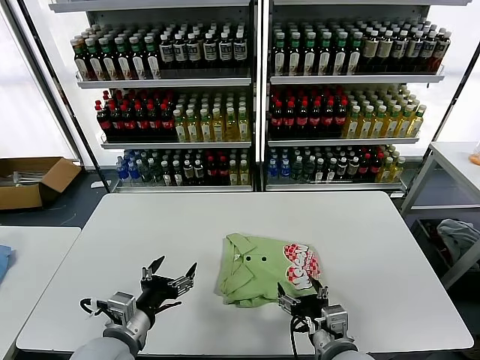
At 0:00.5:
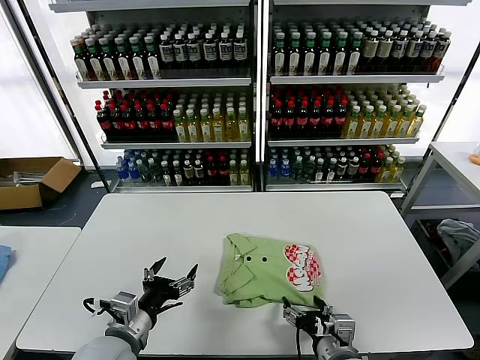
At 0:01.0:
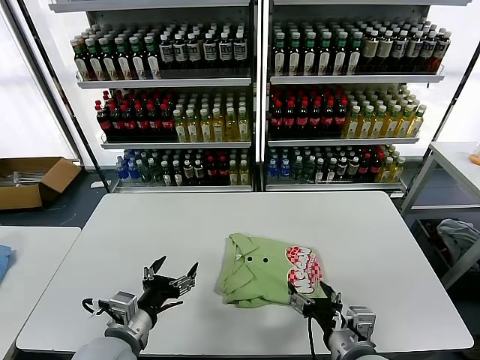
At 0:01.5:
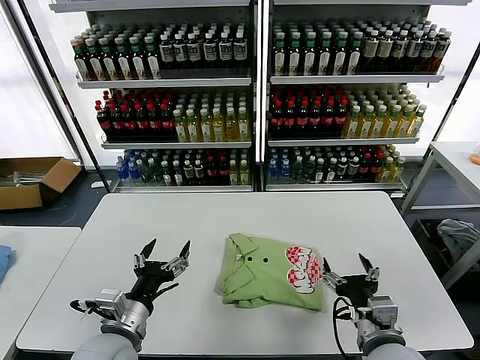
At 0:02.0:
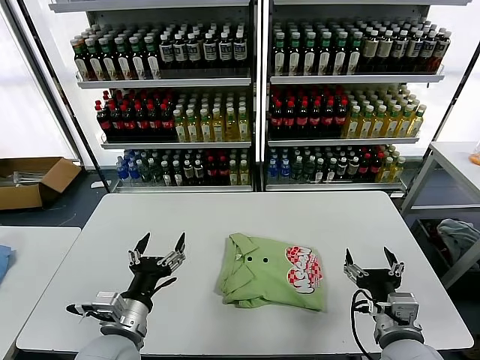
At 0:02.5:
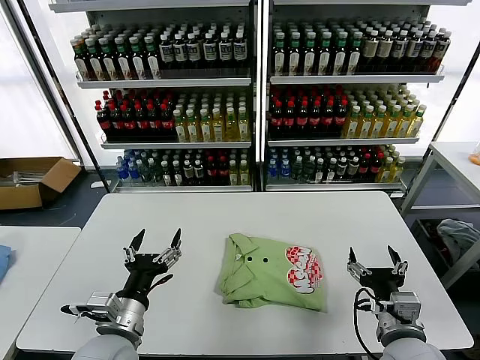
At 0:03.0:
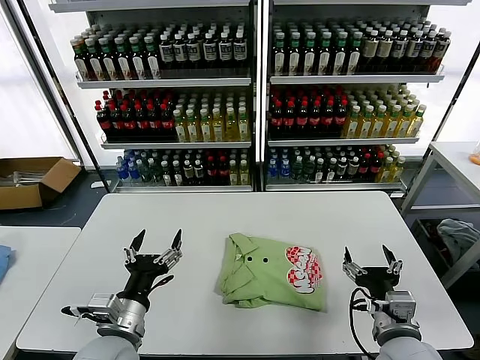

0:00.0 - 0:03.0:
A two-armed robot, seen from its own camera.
Task of the whole recording: fold and organize the clothes.
0:00.0 - 0:01.5: The right gripper travels to the right by about 5 cm.
0:01.5 - 0:03.0: The grippers move only a little.

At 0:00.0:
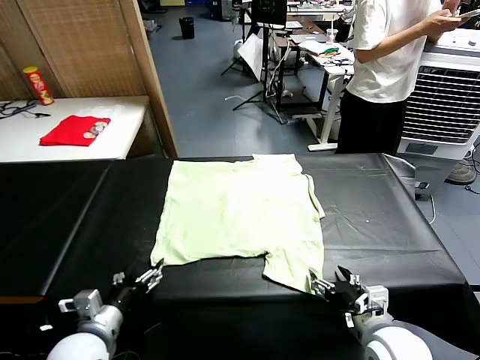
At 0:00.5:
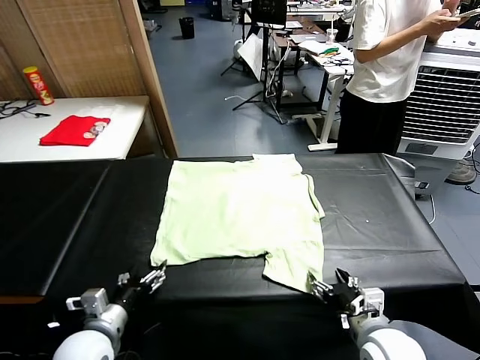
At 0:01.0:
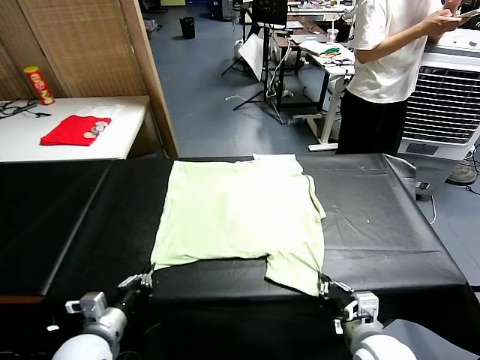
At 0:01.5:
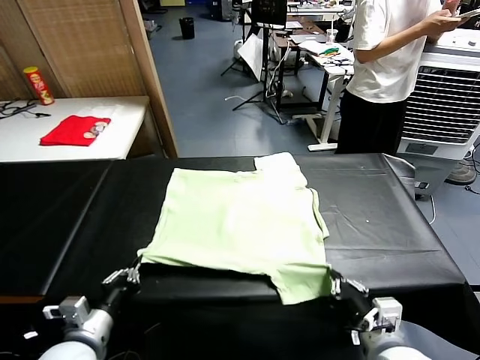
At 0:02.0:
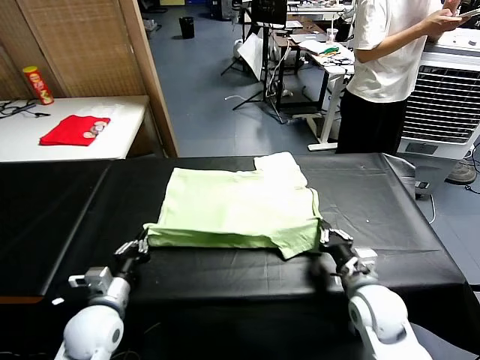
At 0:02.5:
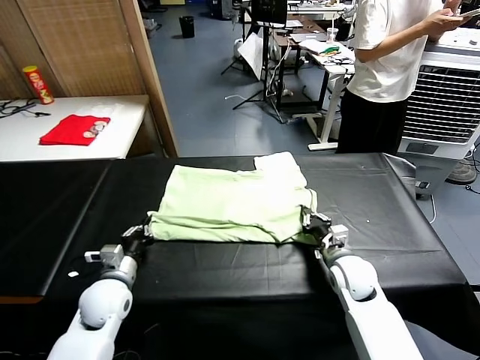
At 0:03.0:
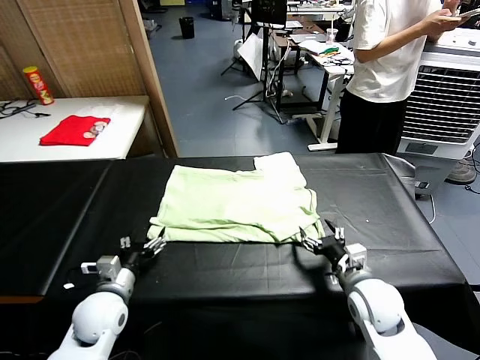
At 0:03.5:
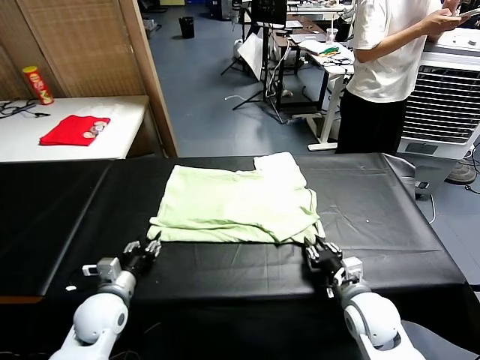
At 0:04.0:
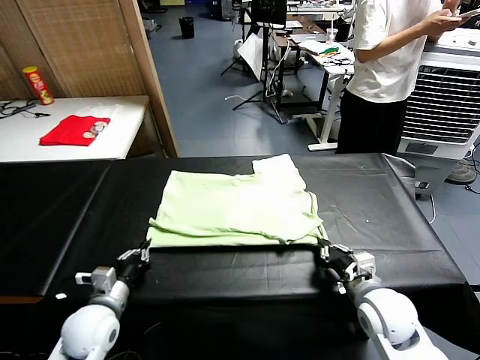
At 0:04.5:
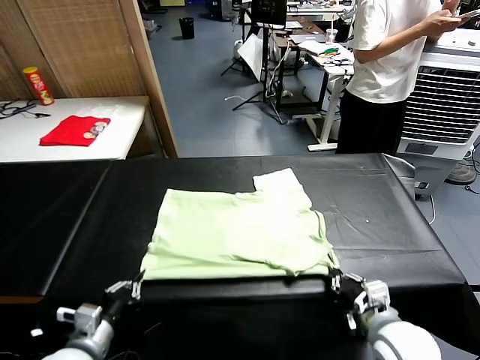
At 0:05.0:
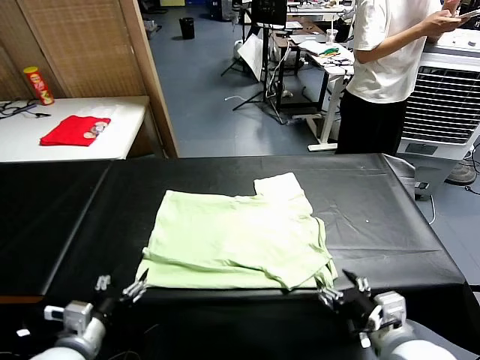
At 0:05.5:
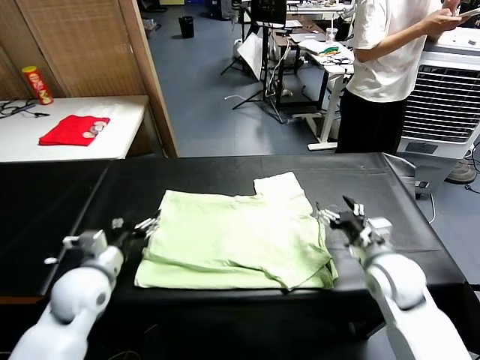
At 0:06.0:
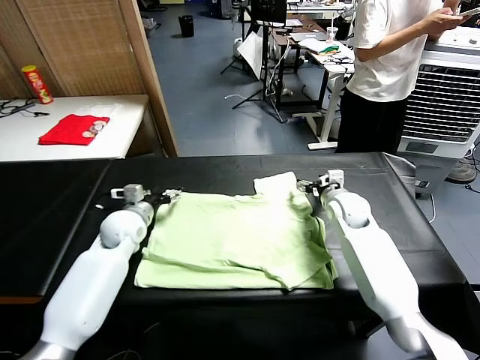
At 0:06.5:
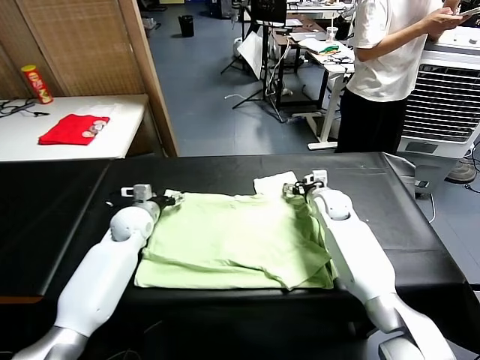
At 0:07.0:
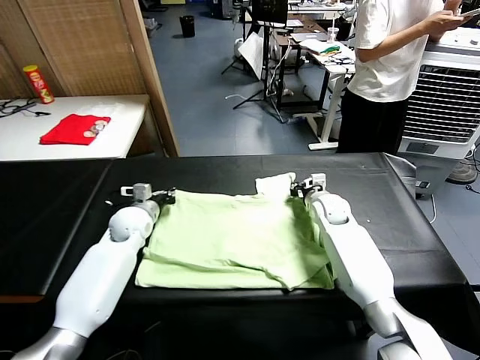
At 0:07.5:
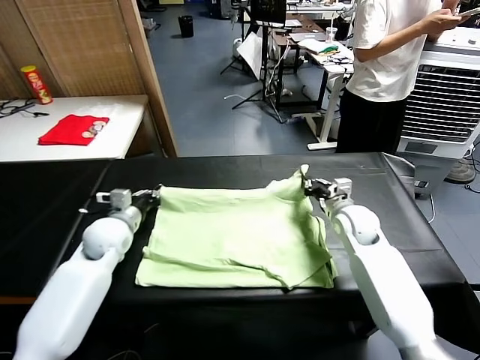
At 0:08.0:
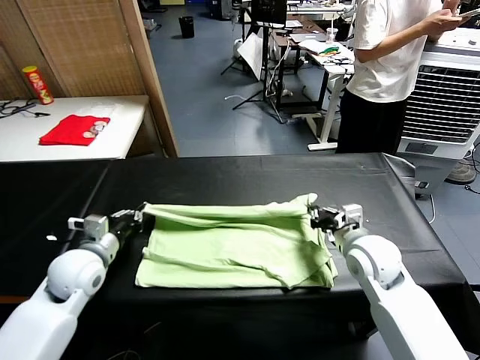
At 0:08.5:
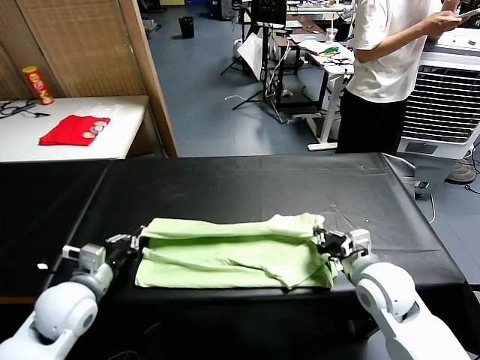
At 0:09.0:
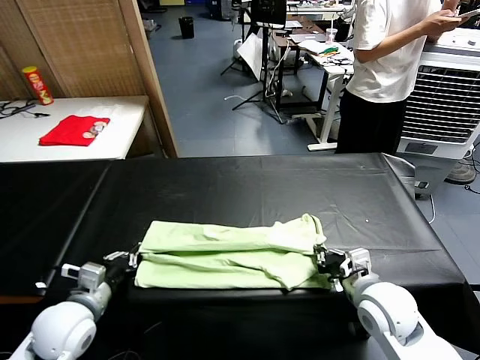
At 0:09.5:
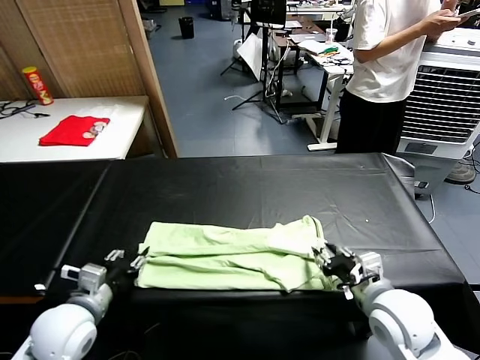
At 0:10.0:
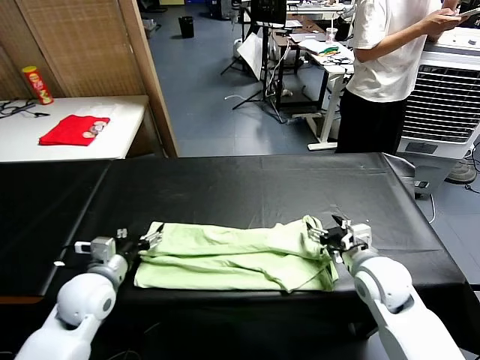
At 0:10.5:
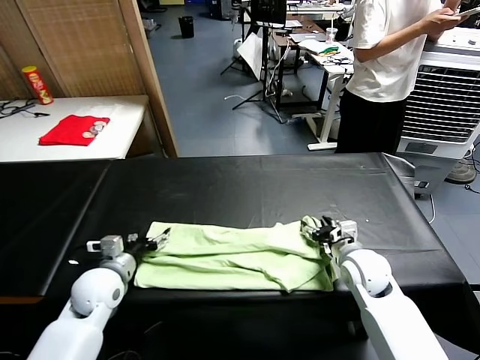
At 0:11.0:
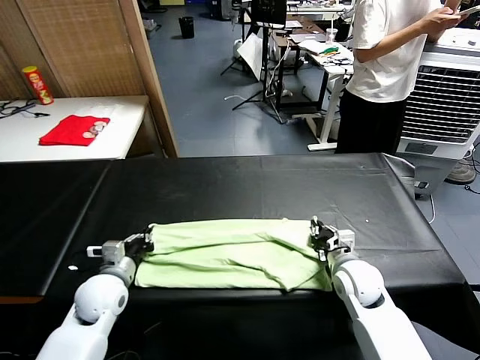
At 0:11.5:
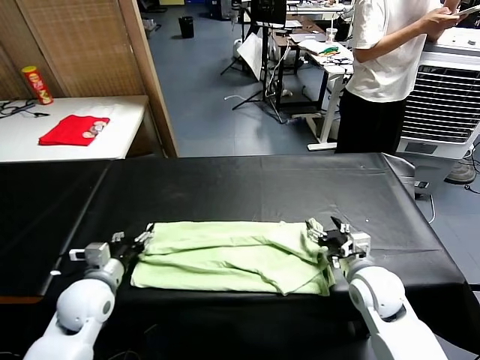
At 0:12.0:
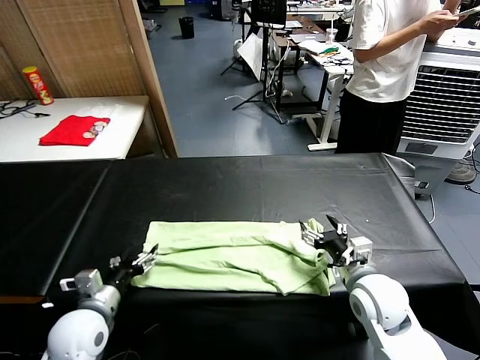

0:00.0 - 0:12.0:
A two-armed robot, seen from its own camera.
Task of the whole recording: fold and organize the clothes.
Step, 0:00.0 - 0:00.5: use both grippers simultaneously to clamp the lower edge of the clothing fabric.
Step, 0:01.5 - 0:02.5: use both grippers to drag the lower edge of the fabric forward and fold it over the upper edge.
Step, 0:03.0 - 0:04.5: Drag the clothes downward with both gripper.
Step, 0:05.0 - 0:07.0: use both grippers simultaneously to clamp the upper edge of the clothing fabric.
Step, 0:07.5 - 0:09.0: use both grippers to drag the upper edge of the fabric backward and fold it over the lower edge.
0:02.0 - 0:04.0: The left gripper opens and closes again. The right gripper moves backward, roughly 5 cm, and opens, then closes again.
0:04.0 - 0:06.0: The grippers both shift forward by about 25 cm. The right gripper opens up, while the left gripper opens its fingers.
0:06.0 - 0:08.0: The grippers both shift backward by some 15 cm. The right gripper closes. Meanwhile the left gripper closes its fingers.
0:08.0 - 0:10.0: The right gripper travels backward and back again, about 10 cm each way, and opens, while the left gripper moves roughly 10 cm backward and comes back, and opens.
0:10.0 - 0:12.0: The left gripper is displaced backward by some 5 cm, and closes and opens again. The right gripper closes, then opens again.

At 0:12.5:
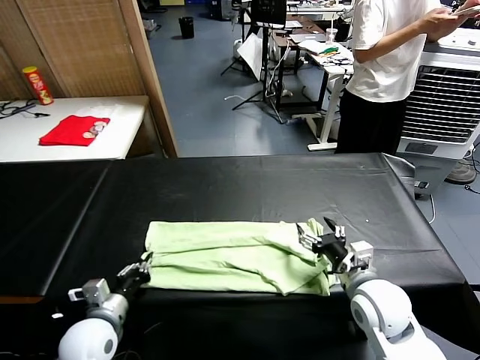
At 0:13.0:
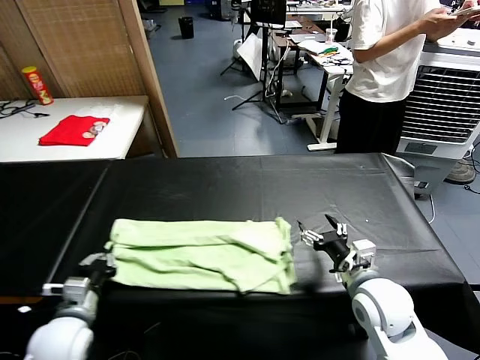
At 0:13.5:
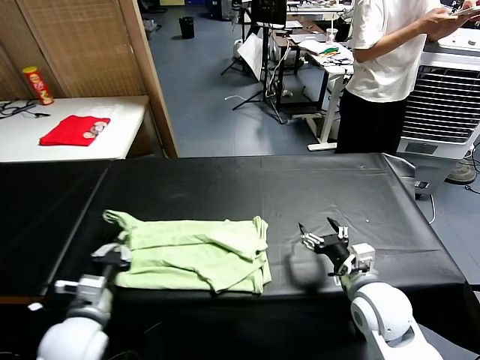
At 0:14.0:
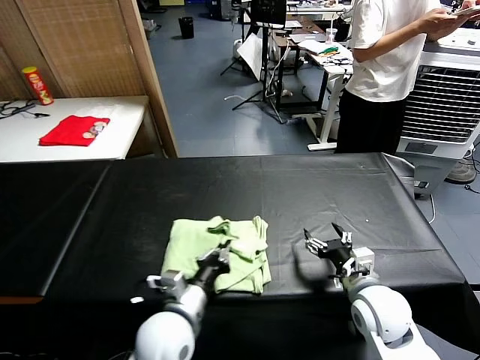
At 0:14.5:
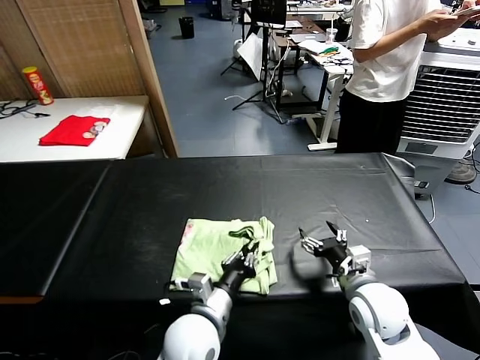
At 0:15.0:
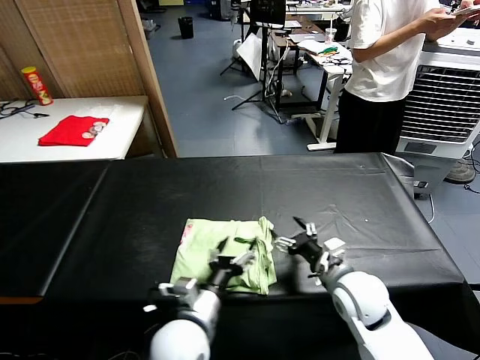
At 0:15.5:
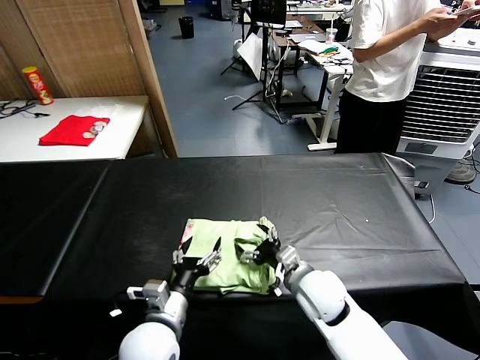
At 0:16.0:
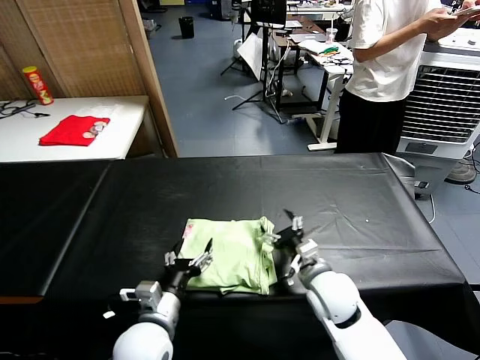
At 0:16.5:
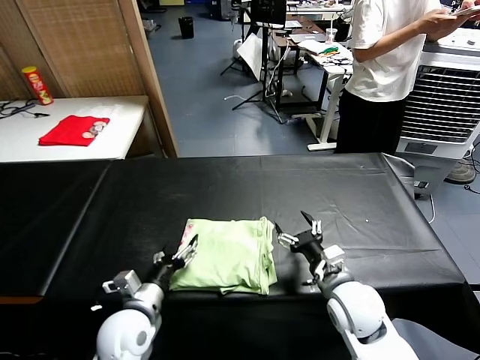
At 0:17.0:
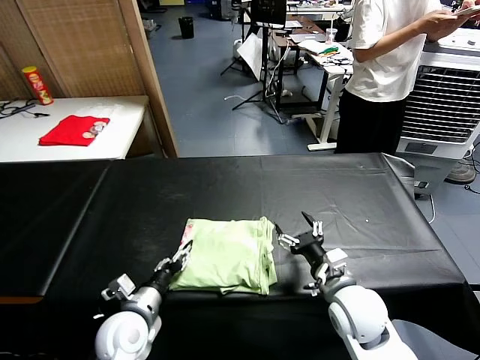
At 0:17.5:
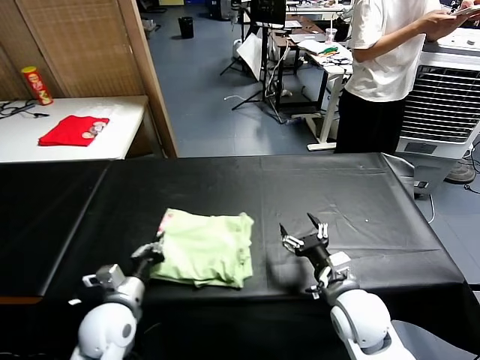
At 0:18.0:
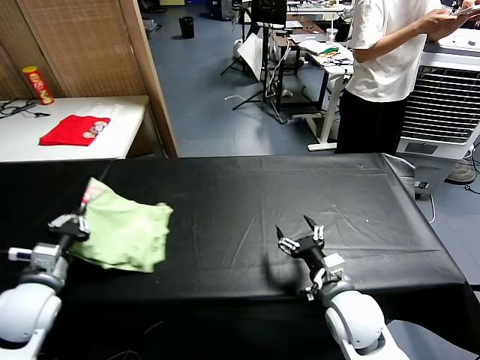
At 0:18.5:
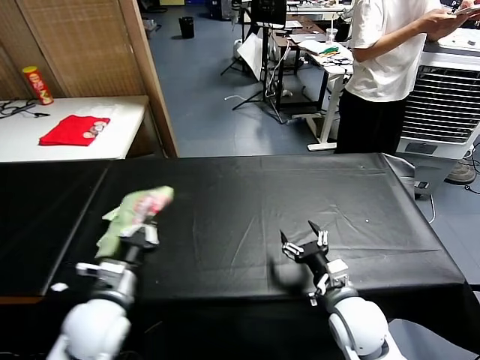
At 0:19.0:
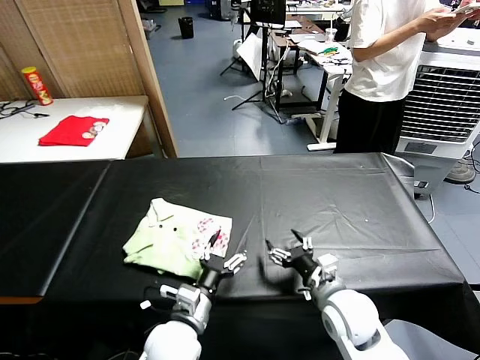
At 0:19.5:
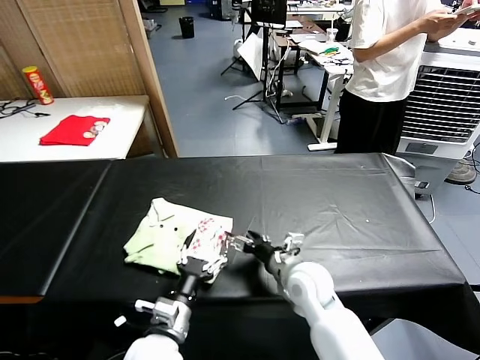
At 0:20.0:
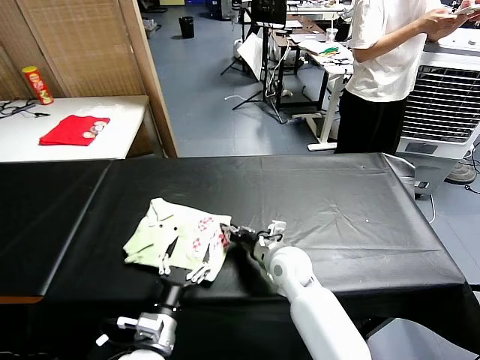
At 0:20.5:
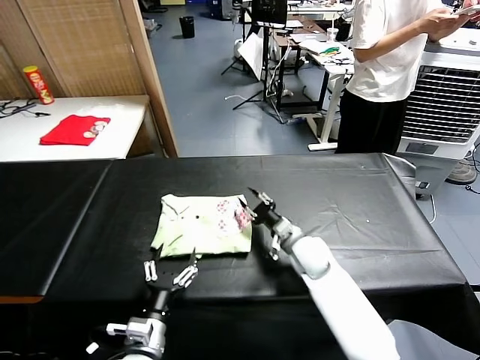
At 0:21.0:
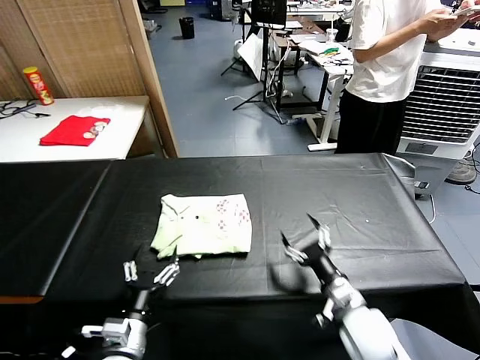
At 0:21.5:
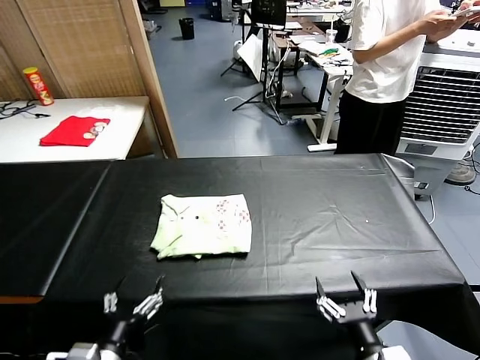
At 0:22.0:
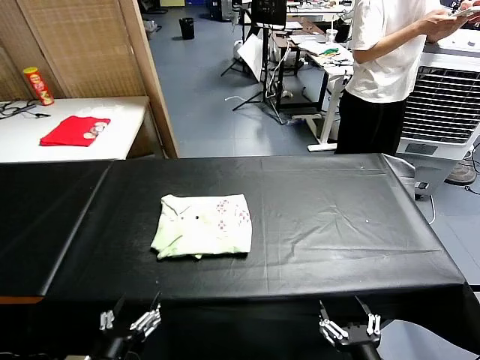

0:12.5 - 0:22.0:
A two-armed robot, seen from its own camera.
Task of the whole recording: fold and organize the clothes.
Step, 0:13.0 - 0:14.5: use the left gripper to drag the left edge of the fabric to the left and folds it over the right edge.
Step, 0:15.0 - 0:18.5: Flip the folded clothes over with left gripper.
Step, 0:19.5 - 0:20.5: Drag the clothes to the center of the table.
0:12.5 - 0:14.5: The left gripper shifts about 20 cm to the right.
0:14.5 - 0:16.5: The left gripper shifts some 15 cm to the left, and opens its fingers.
0:16.5 - 0:18.0: The left gripper moves to the left and upward, about 15 cm, and closes.
0:18.0 - 0:20.0: The right gripper moves forward and to the left, roughly 15 cm, and closes up, while the left gripper travels to the right by roughly 20 cm, and opens.
0:20.0 - 0:22.0: The left gripper is displaced backward, to the left and upward by some 15 cm. The right gripper is displaced backward and to the right by about 35 cm, and opens up.
